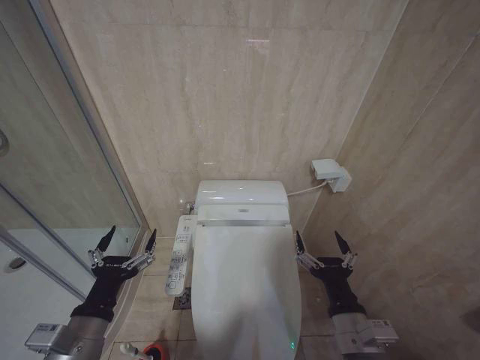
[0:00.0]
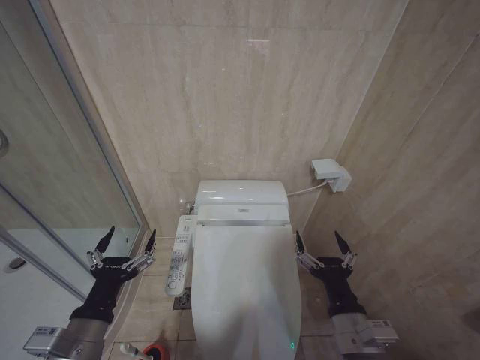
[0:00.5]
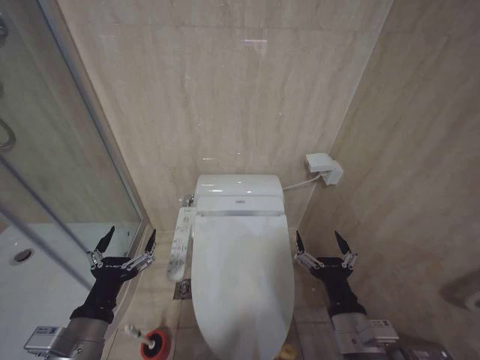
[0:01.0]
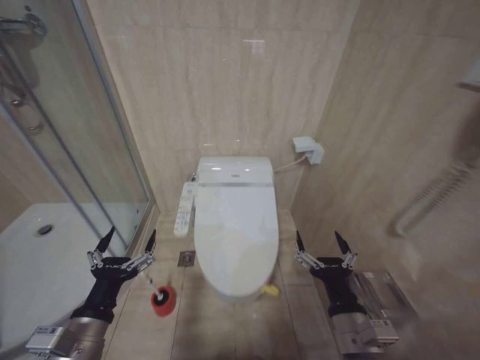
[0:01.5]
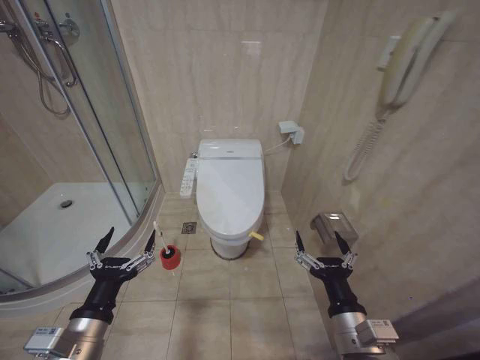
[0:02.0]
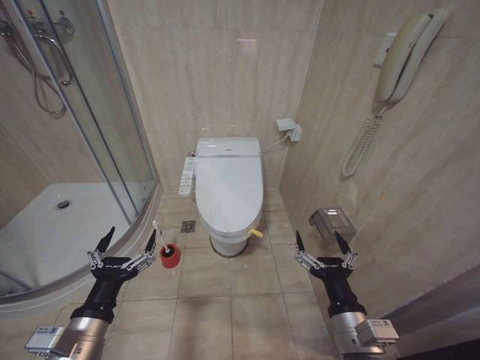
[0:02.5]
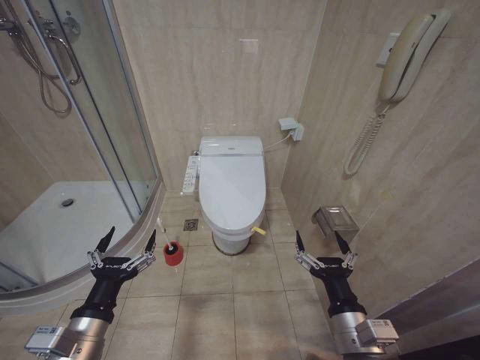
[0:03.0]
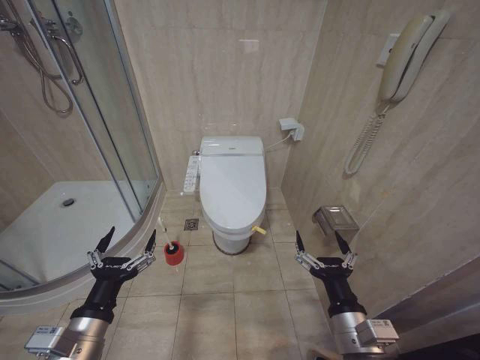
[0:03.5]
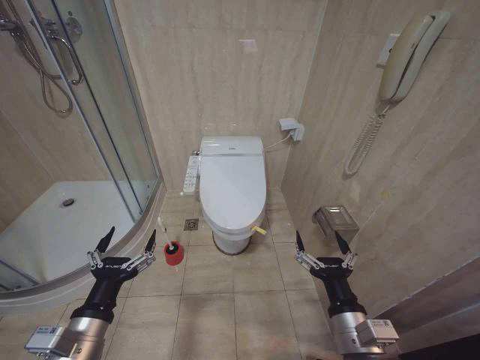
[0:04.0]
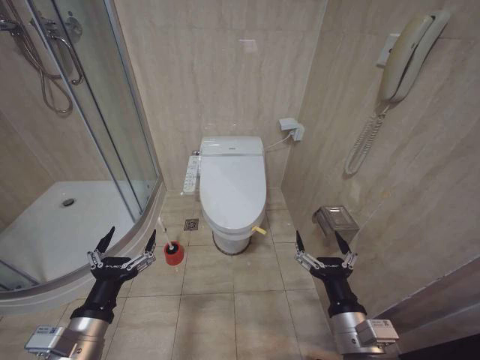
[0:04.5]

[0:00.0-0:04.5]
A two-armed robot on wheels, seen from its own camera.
Task of the whole recording: Open the toilet lid, clean the toilet bowl with a toilet brush, close the toilet lid, and flush.
0:02.0 to 0:04.5: Neither gripper changes place.
